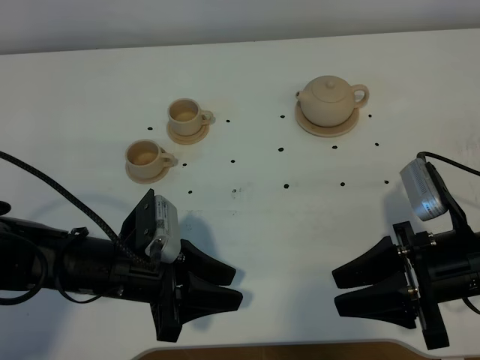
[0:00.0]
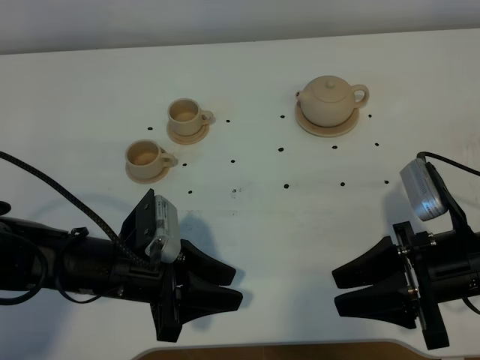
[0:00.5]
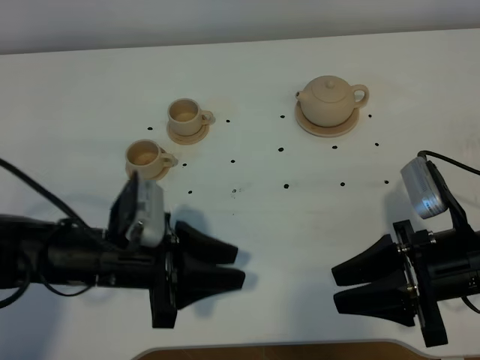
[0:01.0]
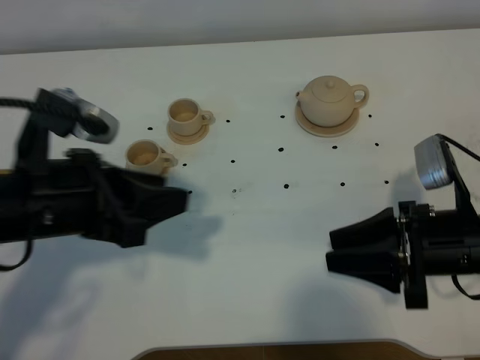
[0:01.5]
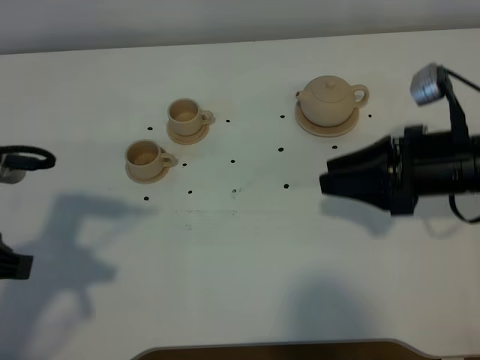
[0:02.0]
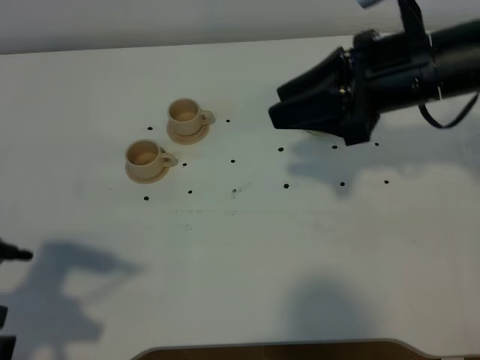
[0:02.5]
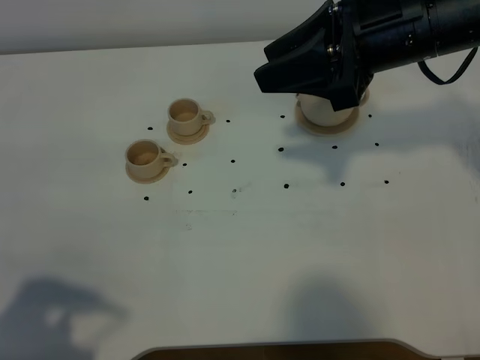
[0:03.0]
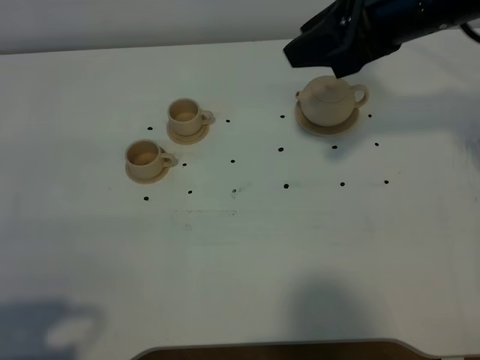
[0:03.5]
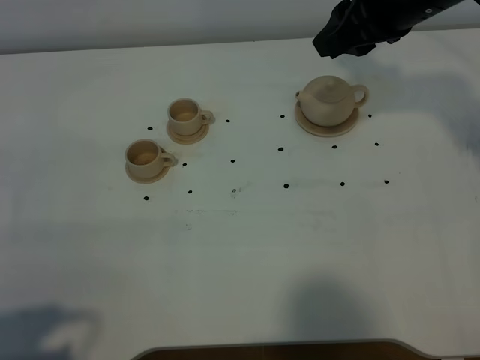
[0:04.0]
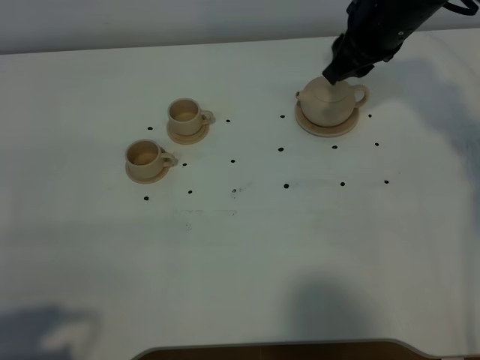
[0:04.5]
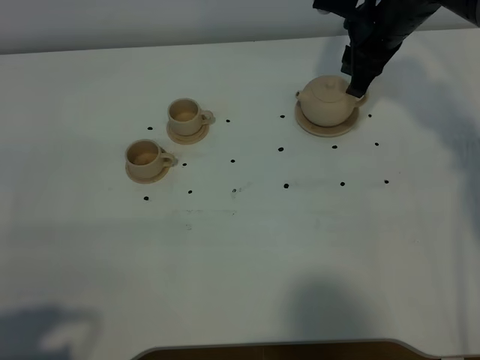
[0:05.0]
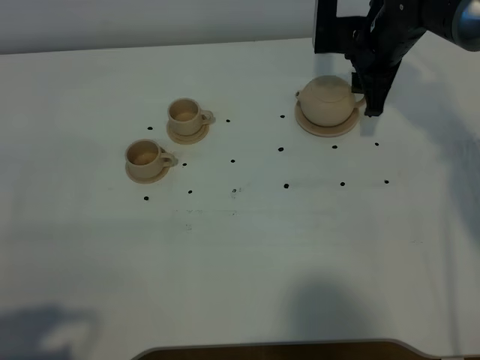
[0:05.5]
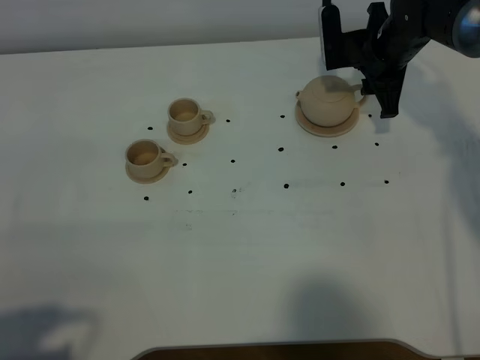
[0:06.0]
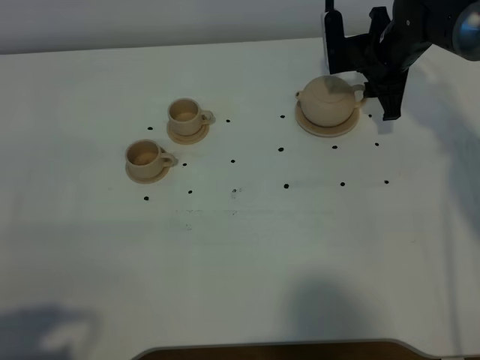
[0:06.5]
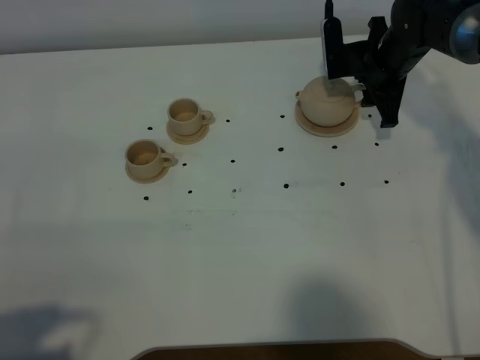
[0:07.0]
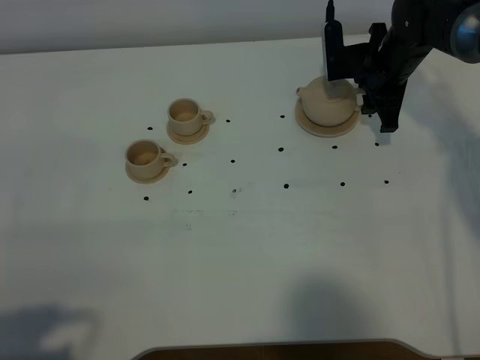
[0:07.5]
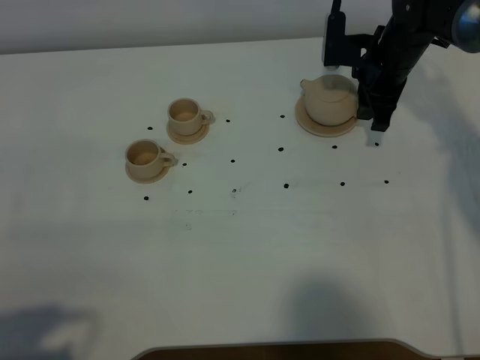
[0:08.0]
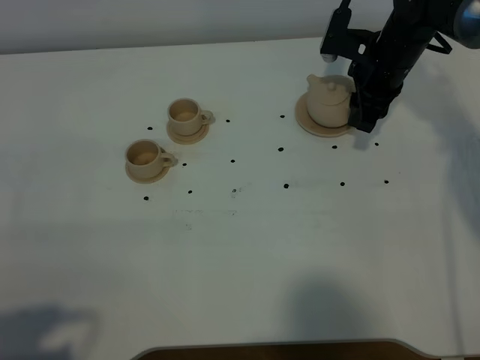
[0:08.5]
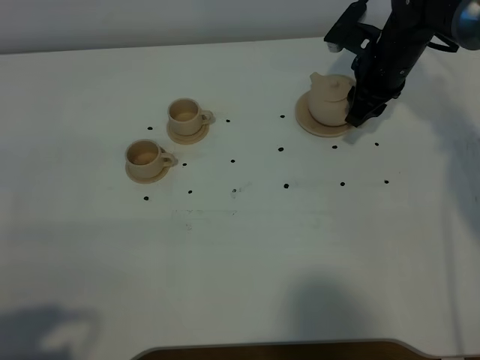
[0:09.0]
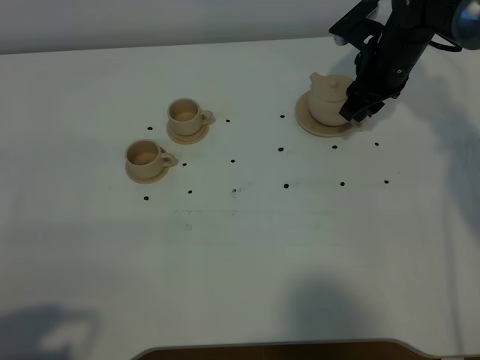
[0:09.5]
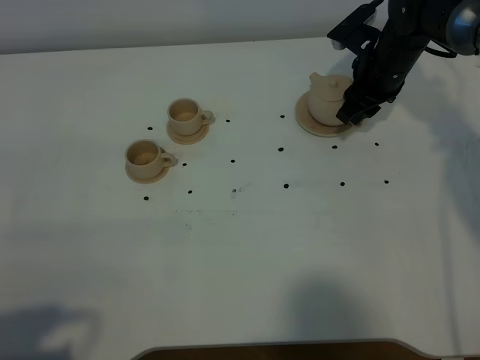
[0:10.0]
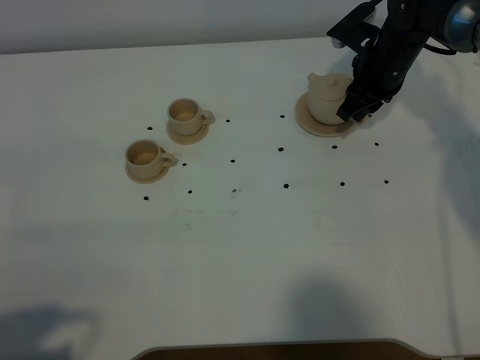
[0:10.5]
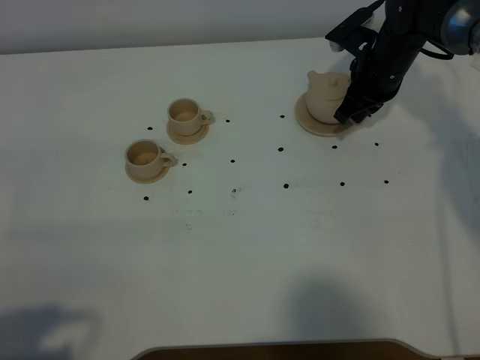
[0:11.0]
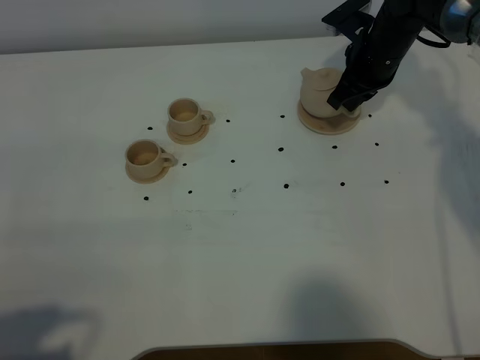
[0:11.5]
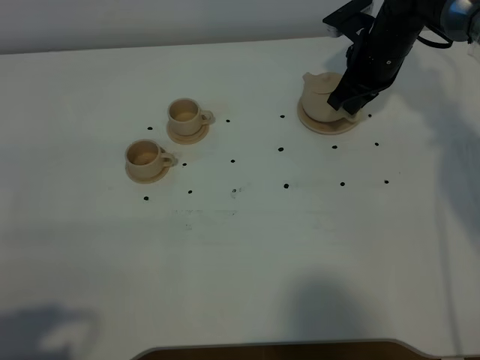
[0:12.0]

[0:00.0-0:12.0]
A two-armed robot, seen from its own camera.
Task of the whole recording: grasp the brown teapot and pour the tea into the two brown teacups one by one, put the brown teapot back in its original place.
0.0 to 2.0 s: The right gripper moves forward and upward, roughly 10 cm; the left gripper travels upward and to the left by about 20 cm.
2.0 to 4.0 s: The left gripper travels backward by about 15 cm. Meanwhile the right gripper travels upward and forward by some 15 cm.
4.0 to 6.0 s: The right gripper is displaced downward and forward by approximately 20 cm.
6.0 to 8.0 s: The grippers move only a little.
10.0 to 12.0 s: The right gripper closes.

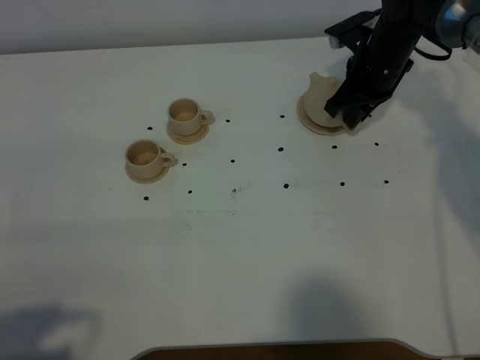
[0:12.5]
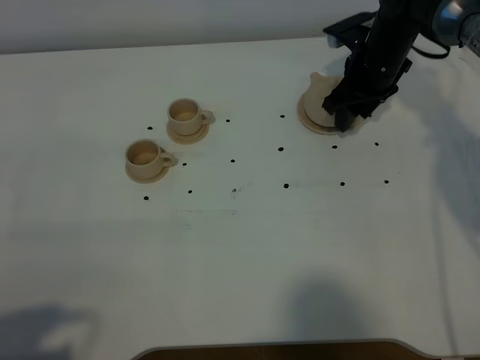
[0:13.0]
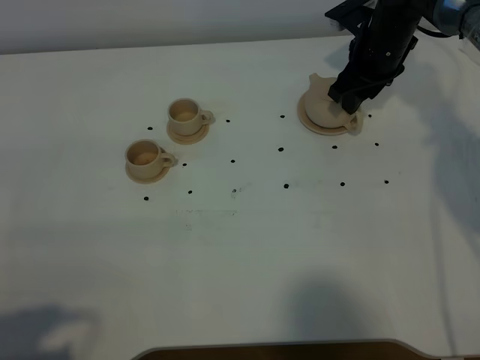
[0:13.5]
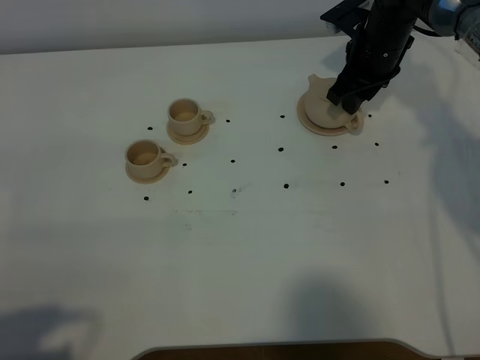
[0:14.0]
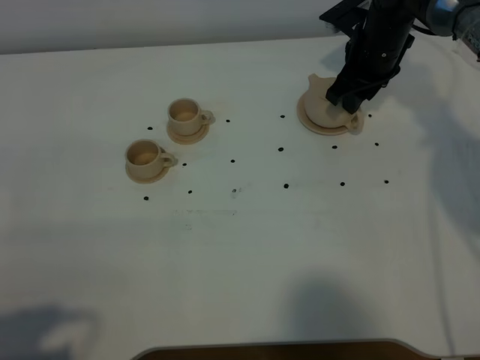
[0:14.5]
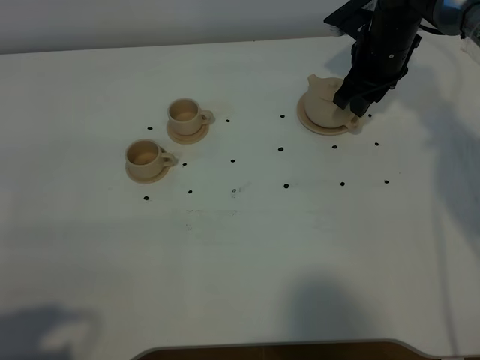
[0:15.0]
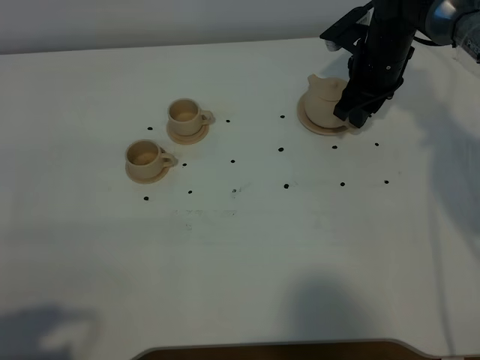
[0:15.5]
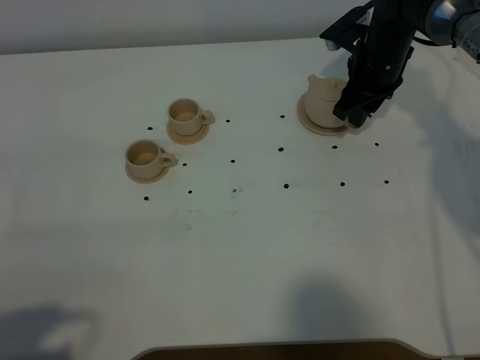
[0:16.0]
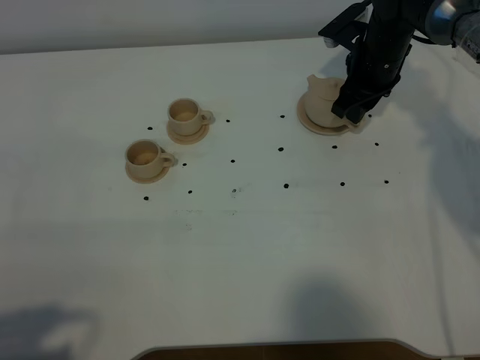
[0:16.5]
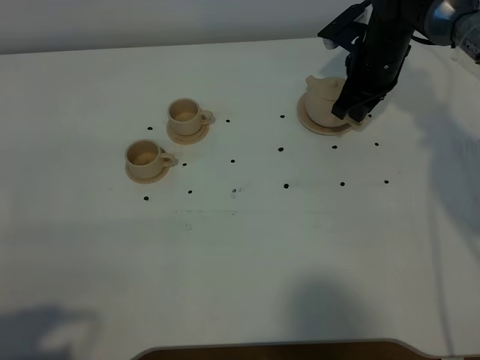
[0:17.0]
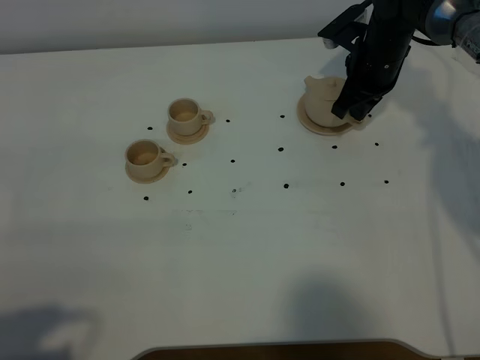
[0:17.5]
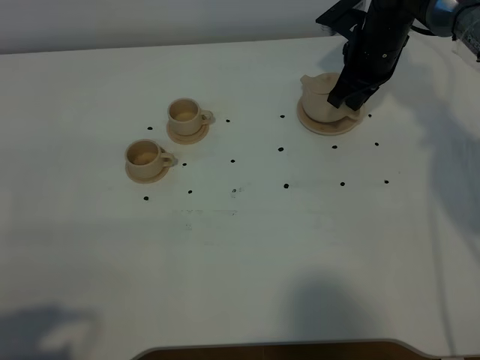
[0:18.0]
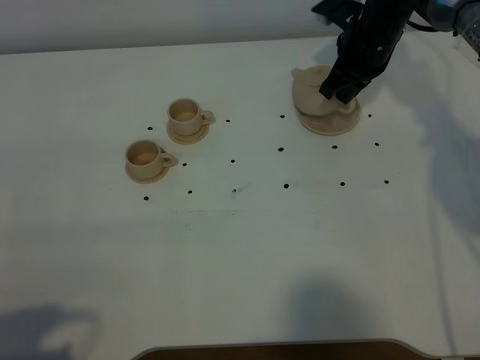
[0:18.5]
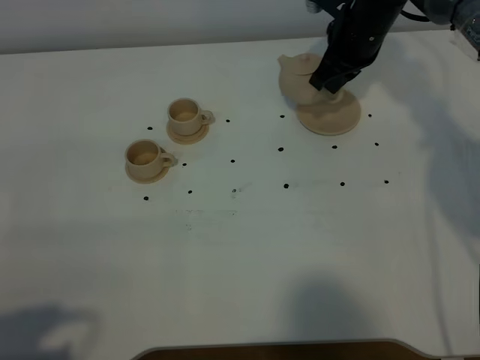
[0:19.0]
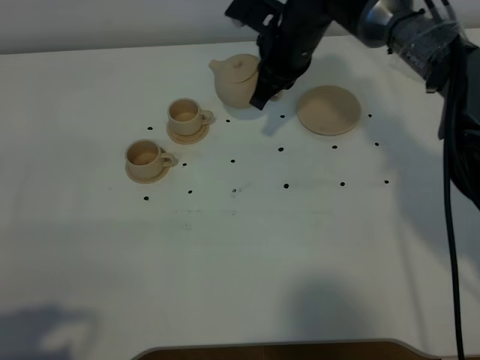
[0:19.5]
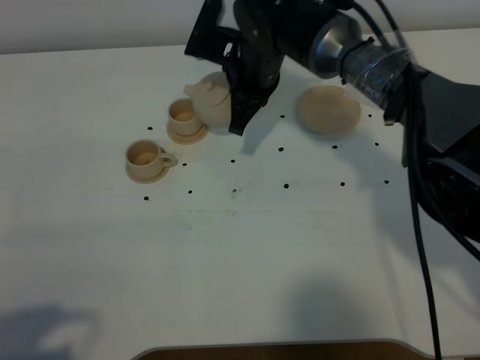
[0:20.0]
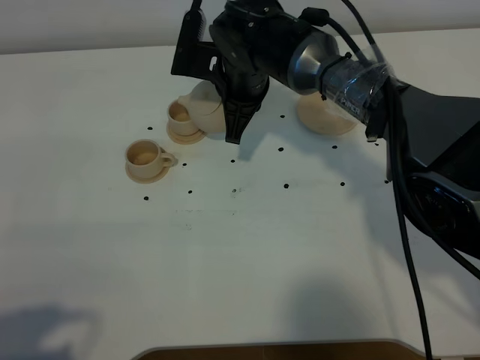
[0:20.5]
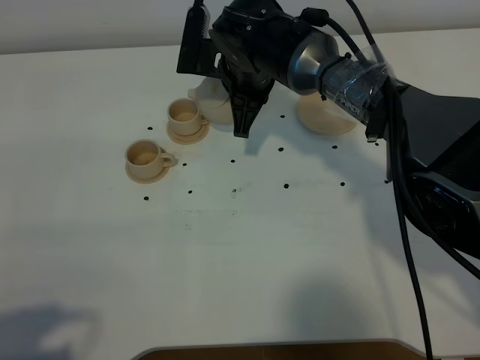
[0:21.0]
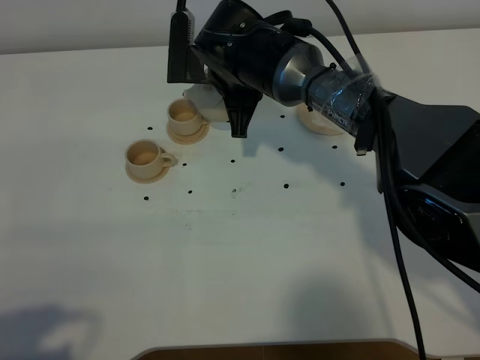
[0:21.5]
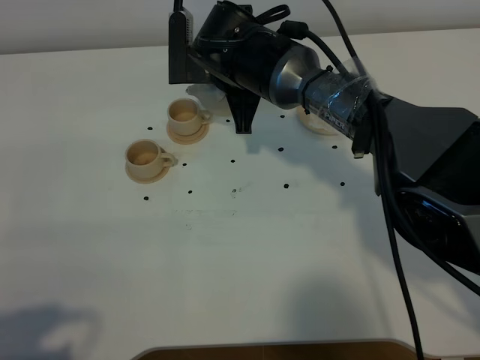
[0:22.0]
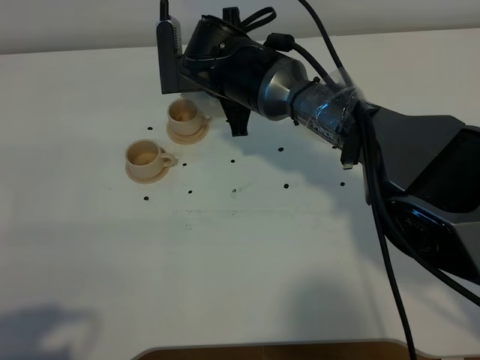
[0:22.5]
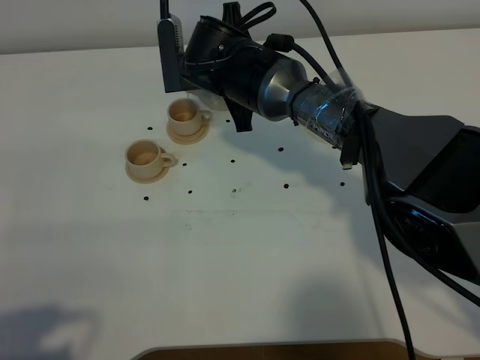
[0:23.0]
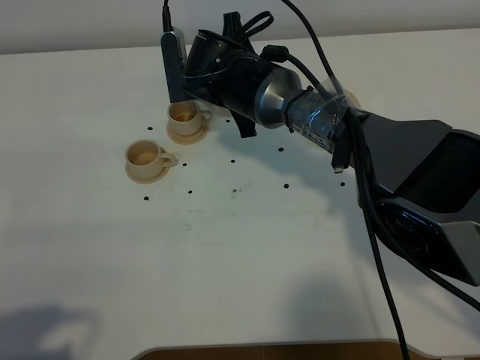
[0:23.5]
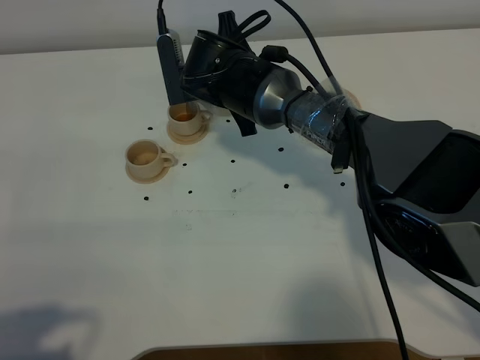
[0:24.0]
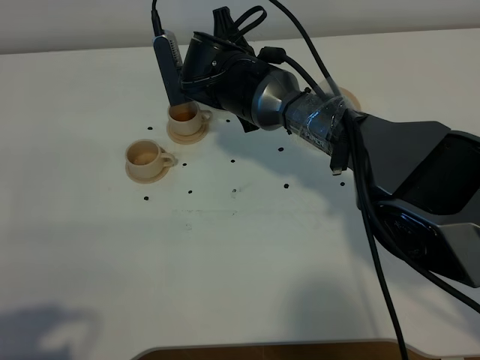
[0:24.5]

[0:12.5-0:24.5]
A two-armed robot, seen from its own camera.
Task of the whole recording: grasp the brown teapot and pour the tea into the two brown teacups one by one, put the brown teapot back in its original place.
Step, 12.5 to 18.0 s: Pick up the teapot with the right gripper.
12.5 to 14.5 s: The right gripper opens.
14.5 to 16.5 s: There are only small adjustments of the grippers.
16.5 to 18.5 s: The right gripper closes up.
18.5 to 20.5 s: The right gripper travels to the left and backward by some 20 cm.
22.5 to 24.5 s: The grippers move only a little.

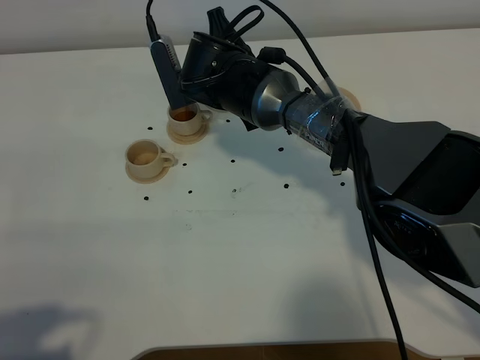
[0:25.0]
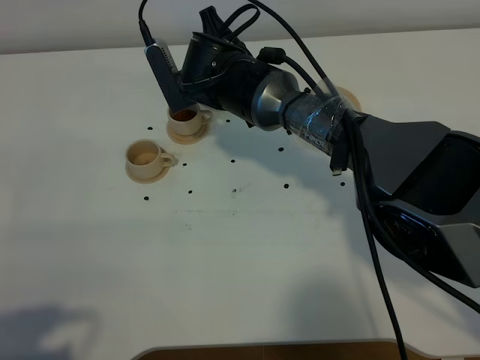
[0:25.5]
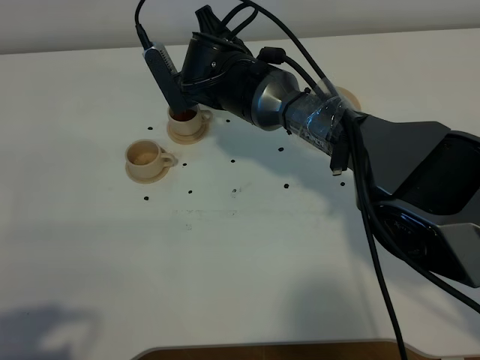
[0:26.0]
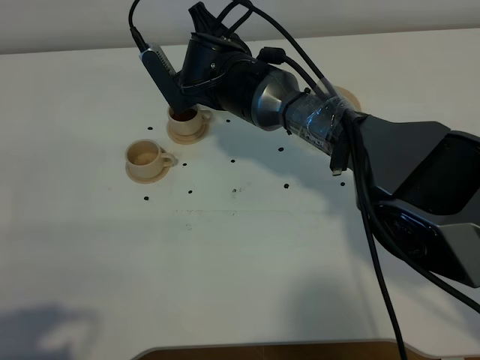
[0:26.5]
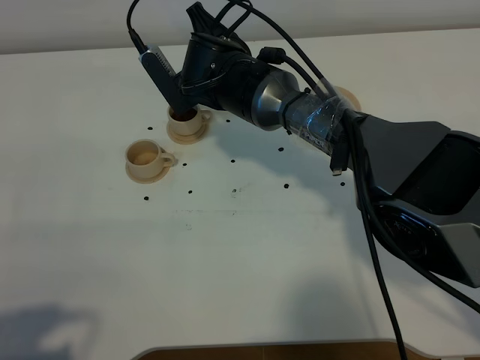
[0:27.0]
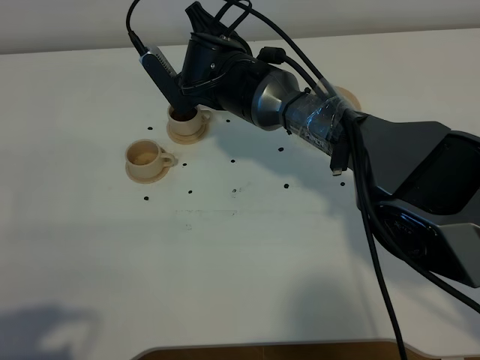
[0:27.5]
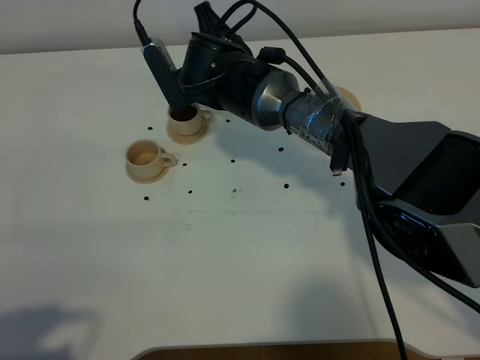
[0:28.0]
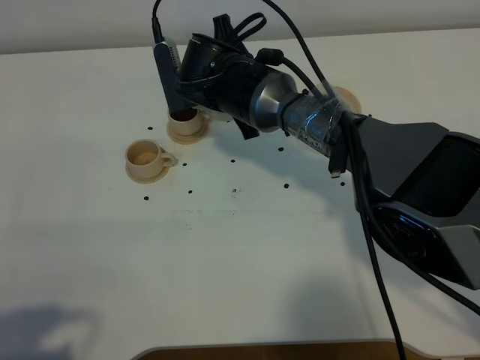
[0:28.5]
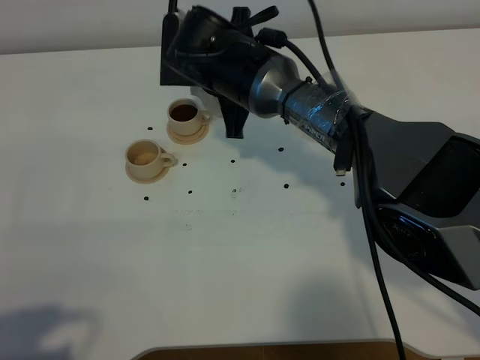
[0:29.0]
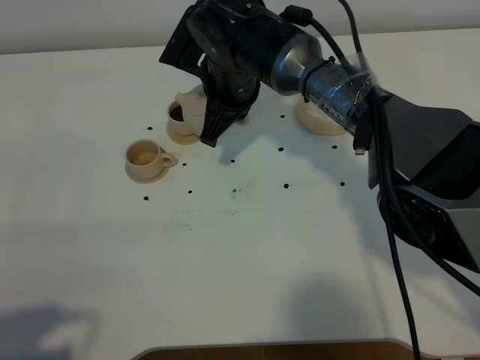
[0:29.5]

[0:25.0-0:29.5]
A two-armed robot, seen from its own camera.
Task of the whole recording: grasp the brown teapot and pour the tea into the two brown teacups one by one, put the brown teapot back in its original place.
Step, 25.0 to 29.0 s: Pour tea into the teacup with the right gripper.
25.0 to 27.0 s: The grippers make only small movements.
